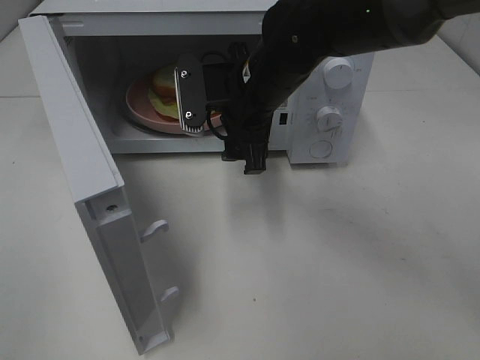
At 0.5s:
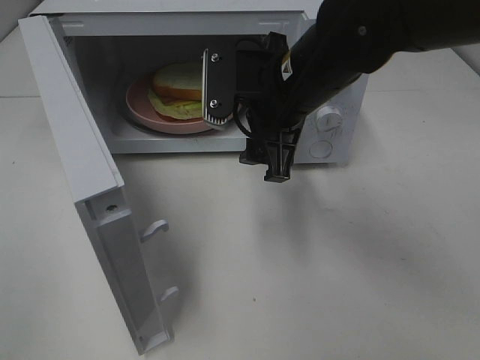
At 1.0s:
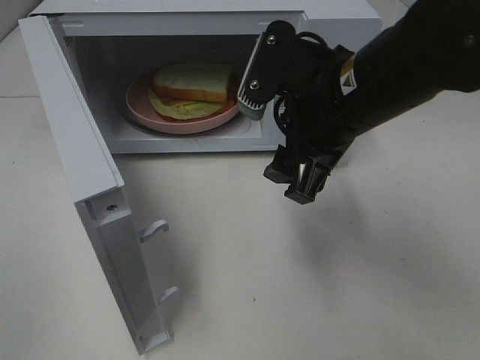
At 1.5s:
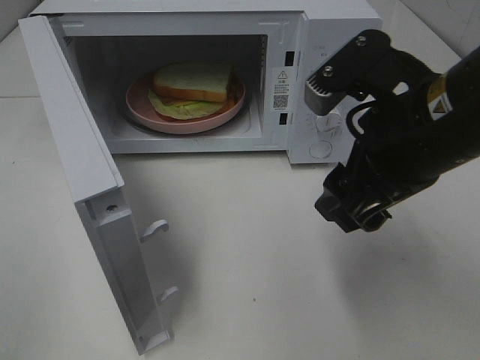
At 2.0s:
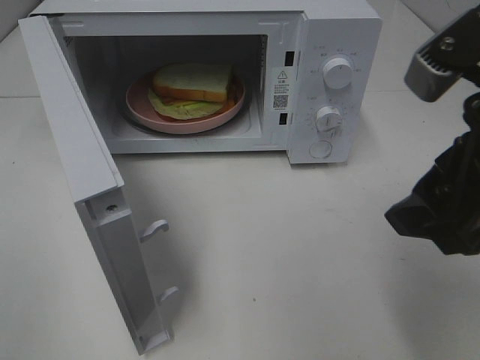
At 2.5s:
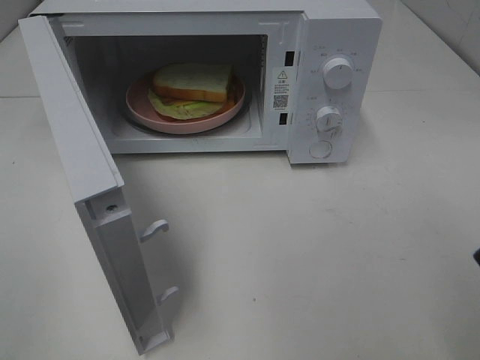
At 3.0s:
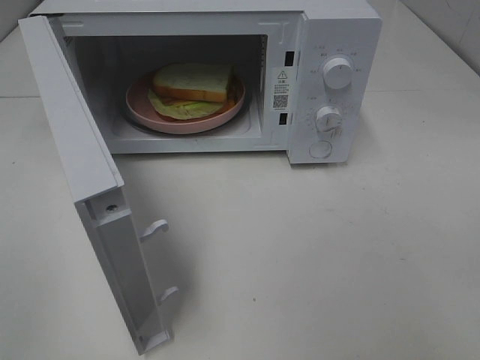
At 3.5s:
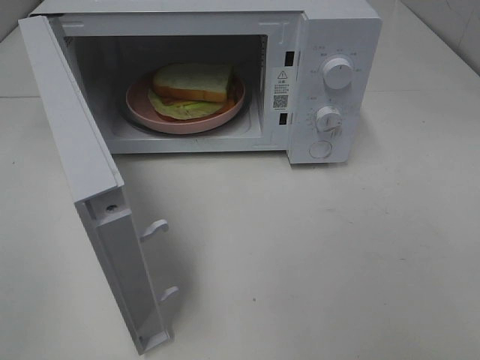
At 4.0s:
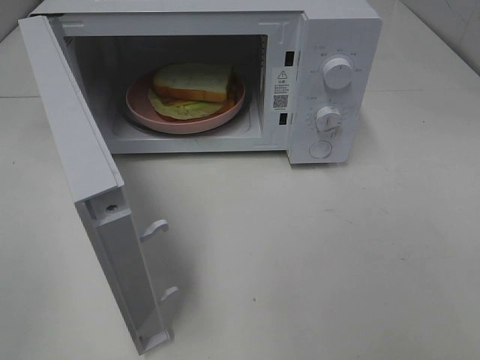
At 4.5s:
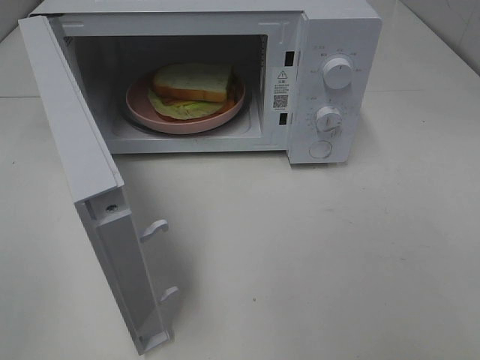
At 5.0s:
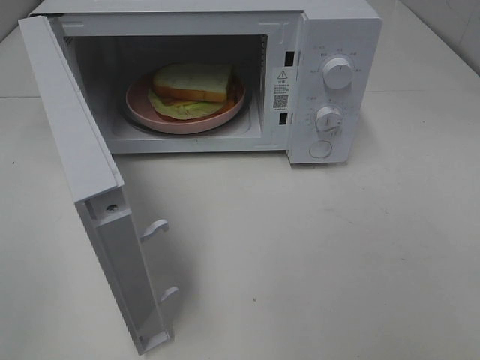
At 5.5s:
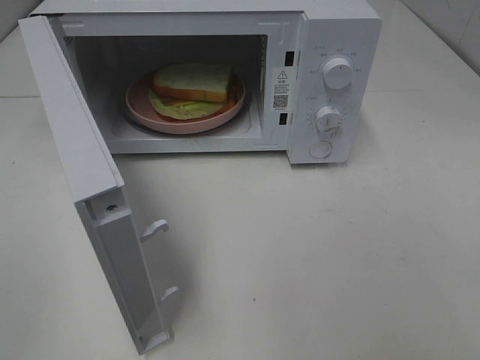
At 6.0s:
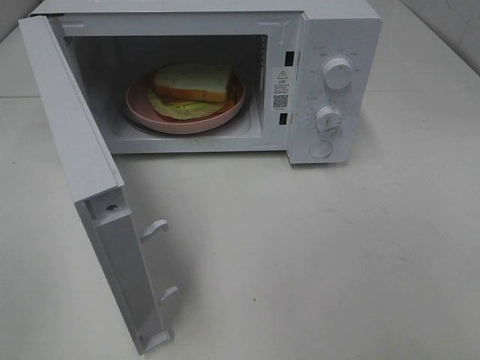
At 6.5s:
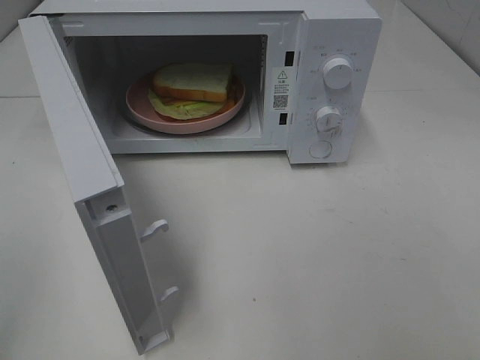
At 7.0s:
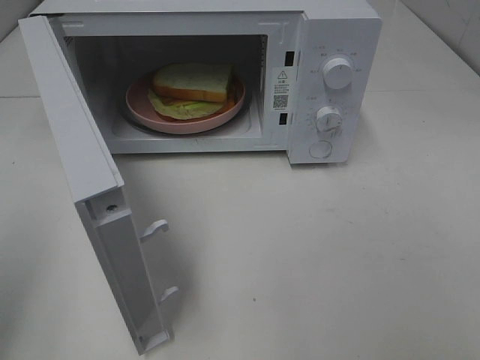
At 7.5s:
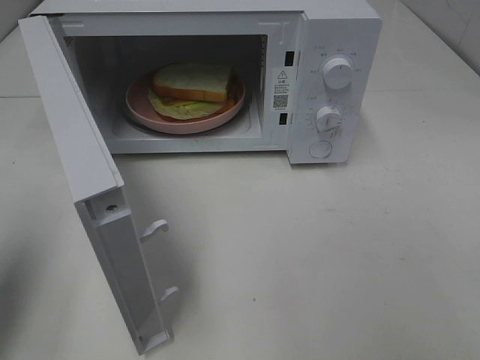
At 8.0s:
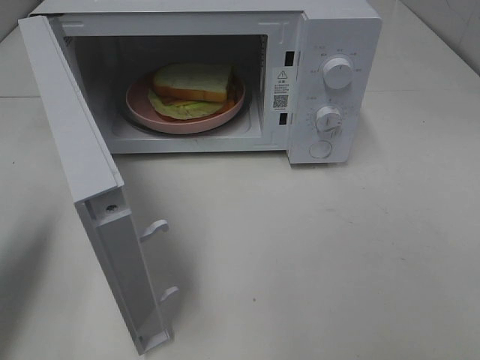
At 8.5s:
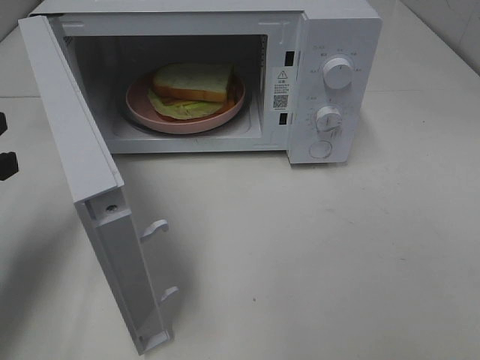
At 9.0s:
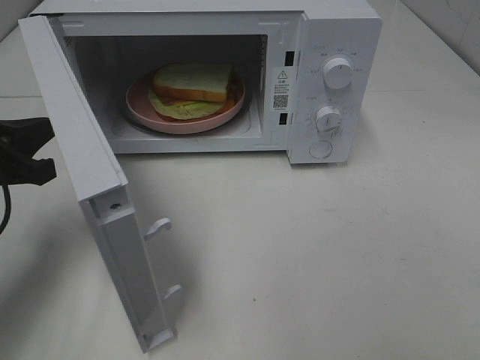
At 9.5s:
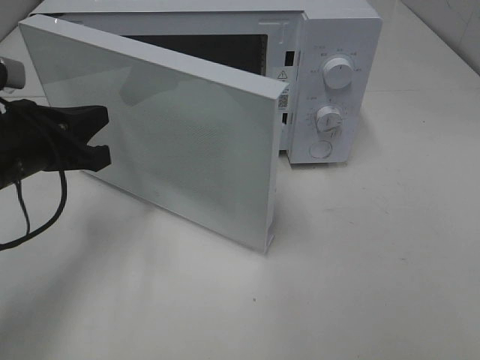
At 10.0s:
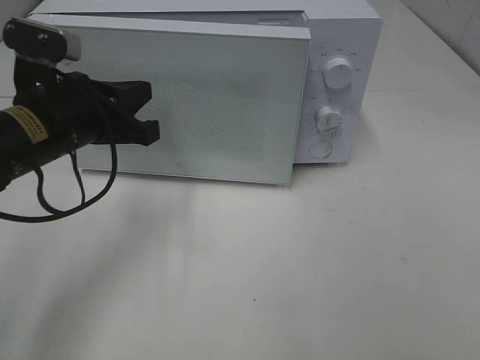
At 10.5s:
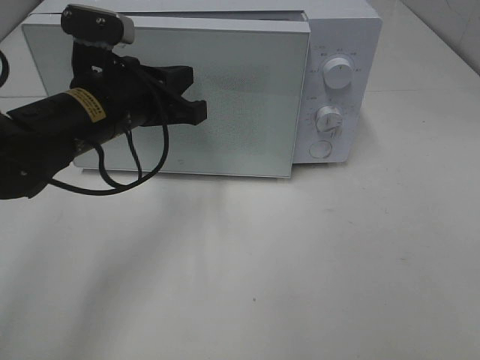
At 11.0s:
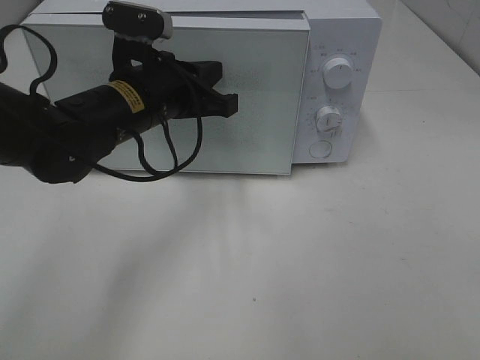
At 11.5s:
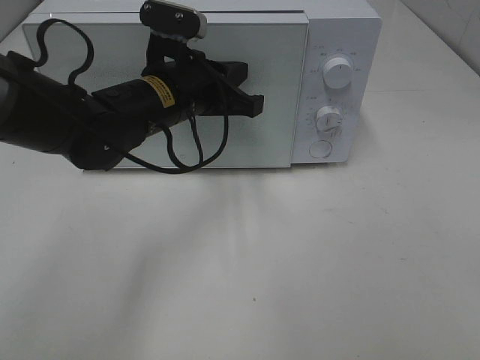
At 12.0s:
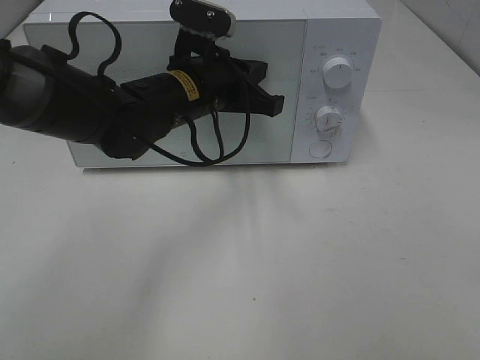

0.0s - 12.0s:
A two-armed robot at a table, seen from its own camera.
Task of the whole recording: Heat Sandwich.
0.0s - 2.0s: The right gripper heads backward, to the right and upward, covering about 25 cm.
2.0s - 4.0s: The right gripper goes about 20 cm backward and to the right.
4.0s - 6.0s: Both grippers stay about where they are.
6.0s - 8.0s: The left gripper moves forward, roughly 20 cm, and closes.
8.0s - 10.0s: The left gripper moves to the right and forward, roughly 15 cm.
10.0s - 12.0s: The left gripper is displaced to the right and forward by approximately 15 cm.

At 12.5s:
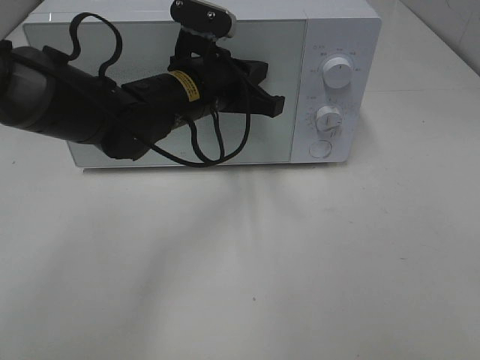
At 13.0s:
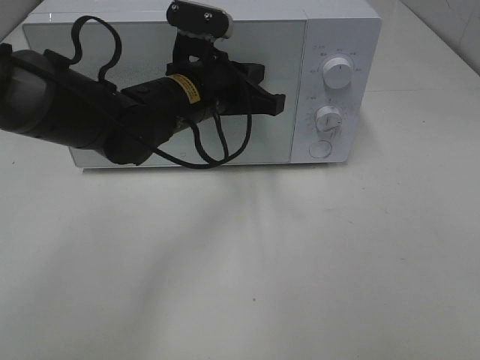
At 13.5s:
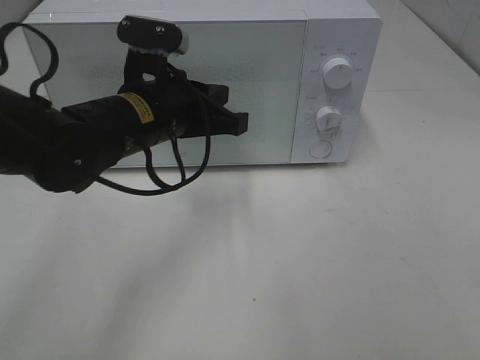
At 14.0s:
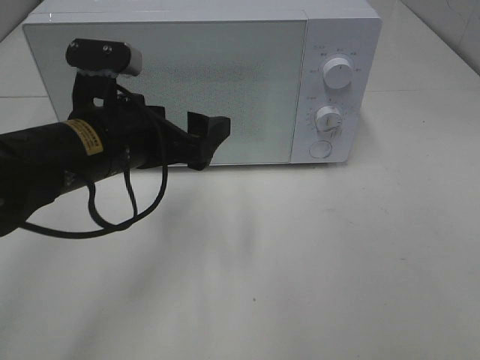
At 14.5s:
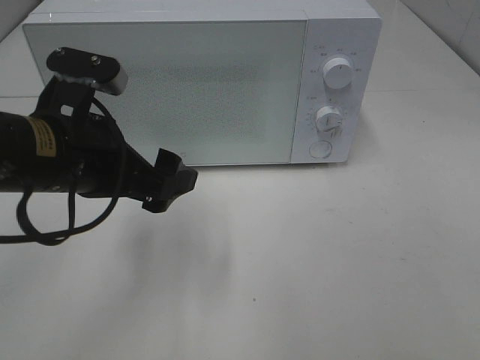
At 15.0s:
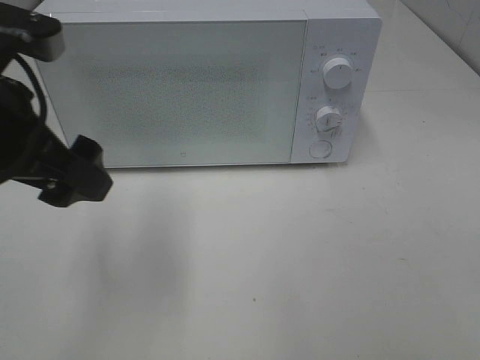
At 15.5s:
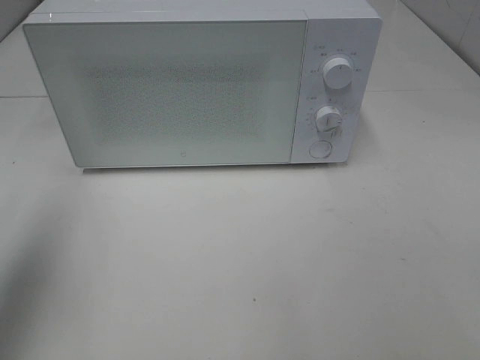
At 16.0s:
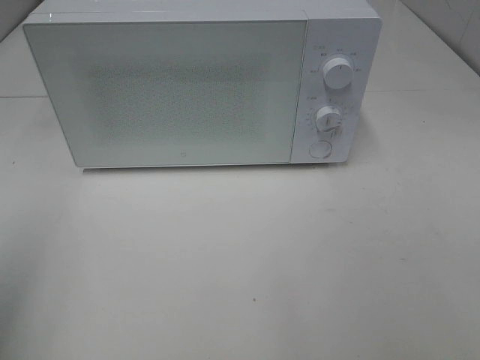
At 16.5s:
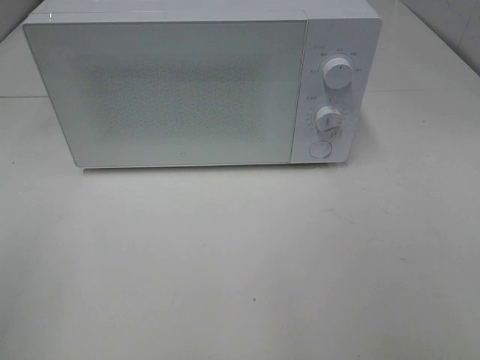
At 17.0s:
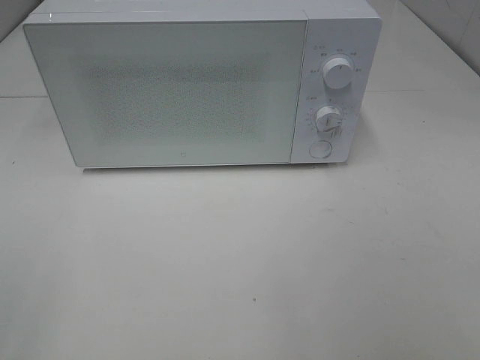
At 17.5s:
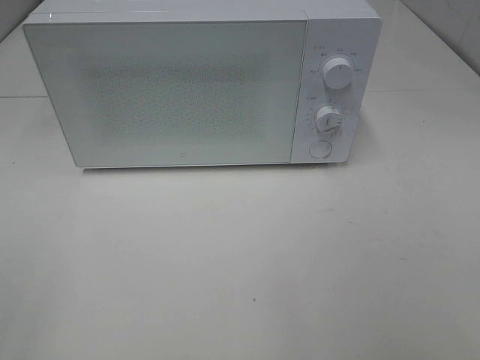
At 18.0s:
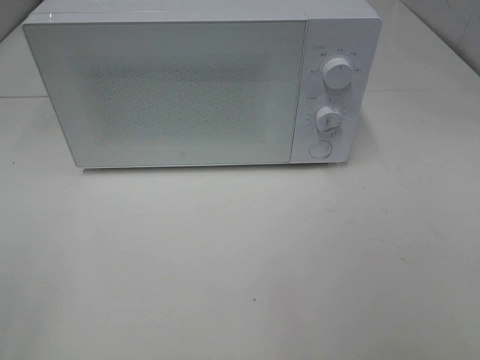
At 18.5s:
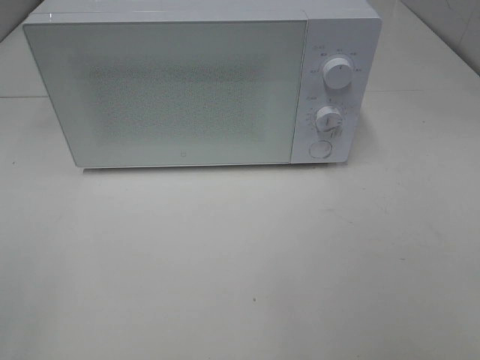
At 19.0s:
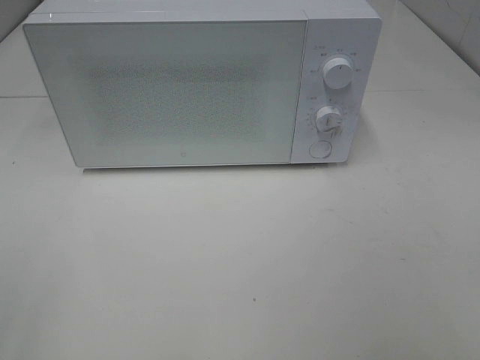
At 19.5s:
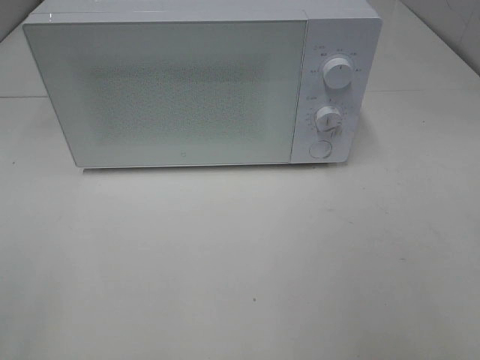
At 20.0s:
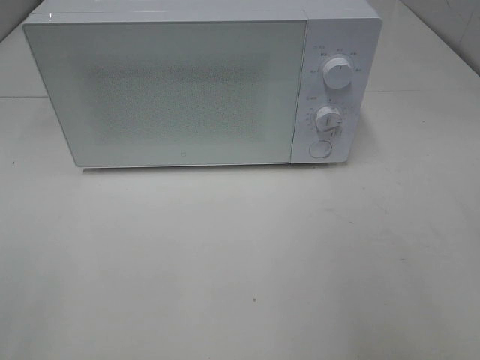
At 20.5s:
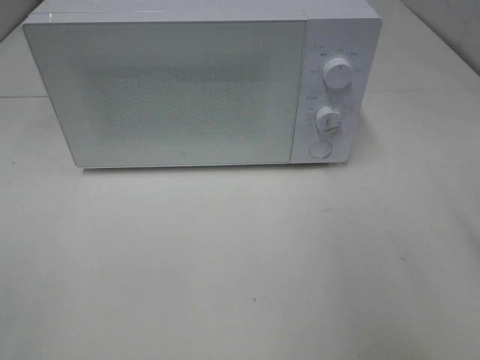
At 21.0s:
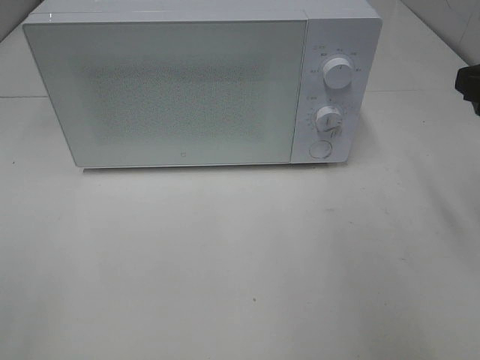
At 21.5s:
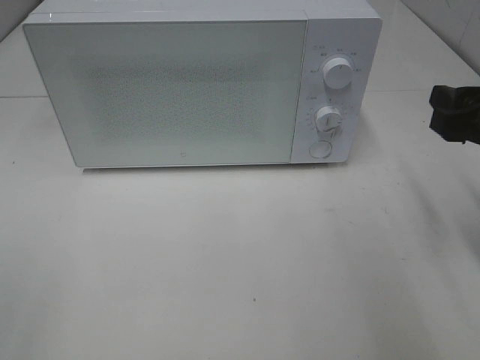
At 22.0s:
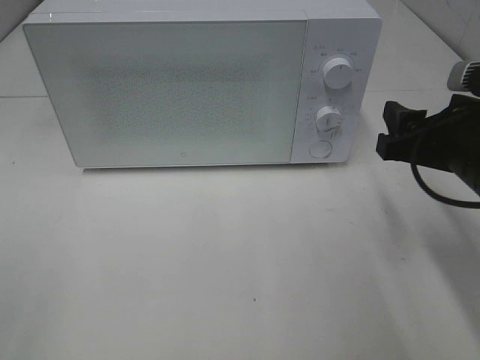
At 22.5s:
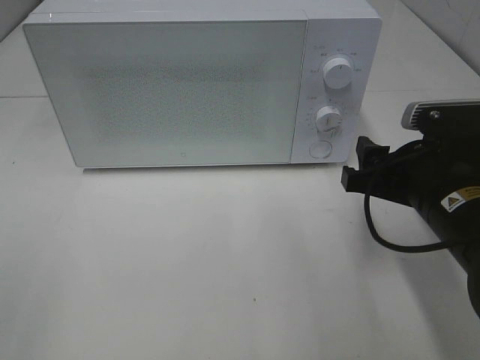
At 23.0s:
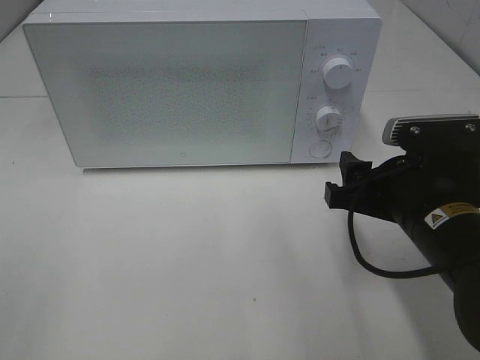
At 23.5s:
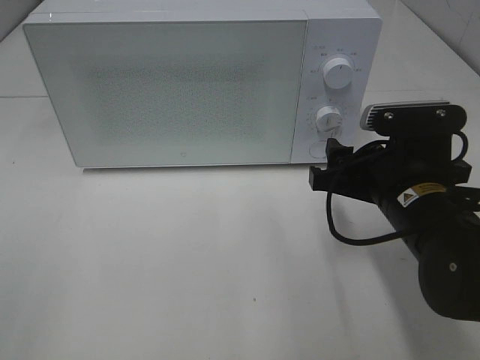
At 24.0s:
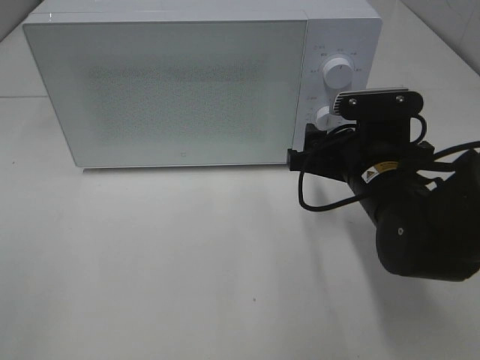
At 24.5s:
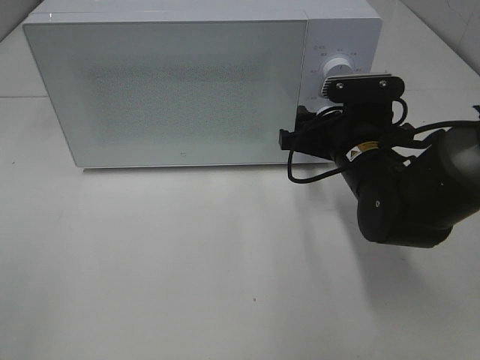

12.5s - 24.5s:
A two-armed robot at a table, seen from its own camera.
Task of the whole recording: Heat Sandwich.
12.5s - 14.5s: The left gripper is displaced backward and to the left by about 15 cm, and opens its fingers.
14.5s - 16.5s: The left gripper moves backward, to the left and upward, approximately 25 cm.
20.5s - 22.5s: The right gripper moves downward and to the left, some 15 cm.
22.5s - 24.5s: The right gripper moves forward, roughly 10 cm.

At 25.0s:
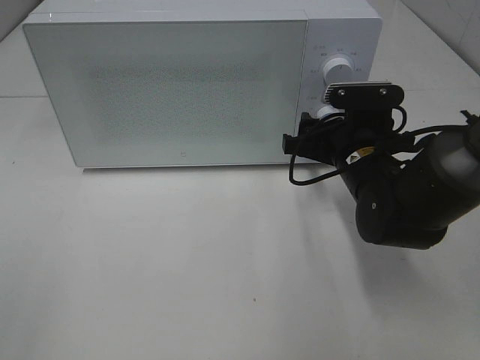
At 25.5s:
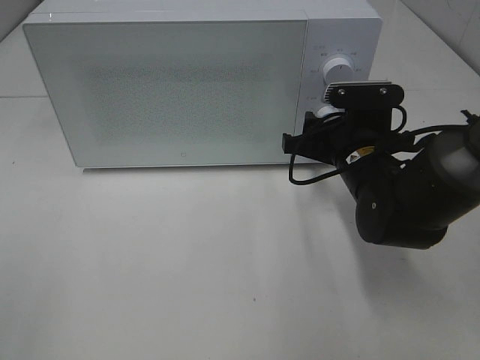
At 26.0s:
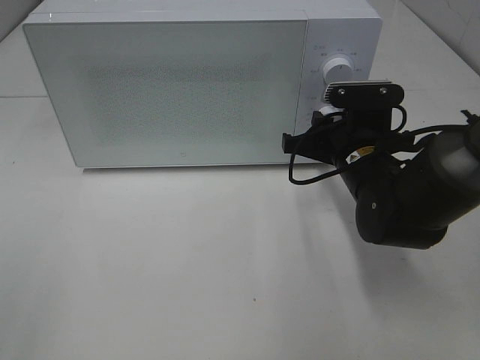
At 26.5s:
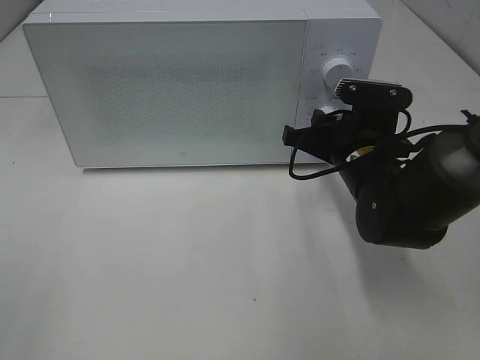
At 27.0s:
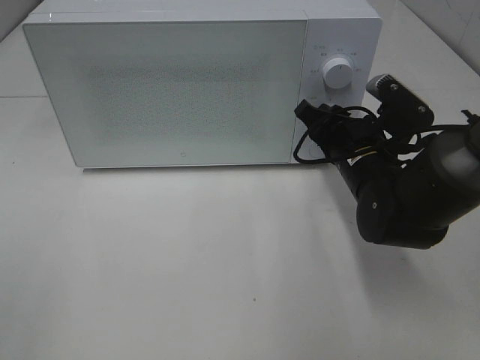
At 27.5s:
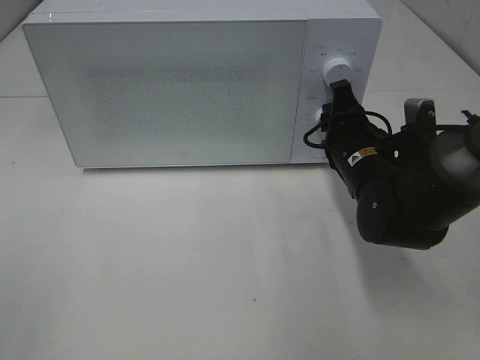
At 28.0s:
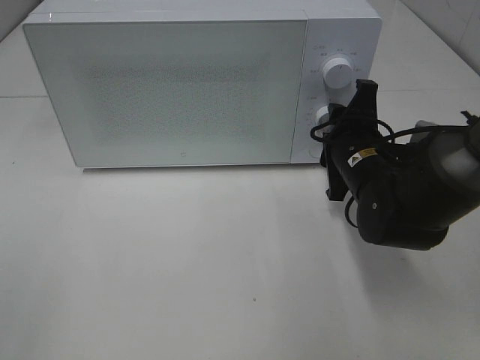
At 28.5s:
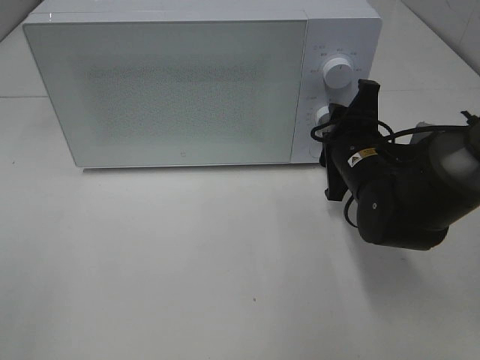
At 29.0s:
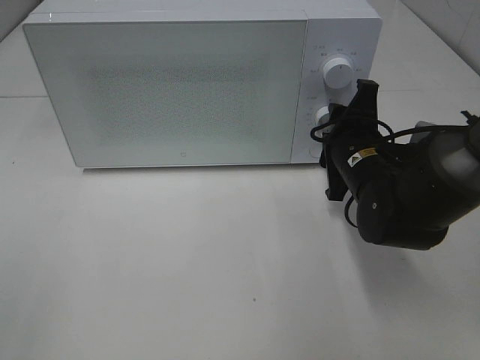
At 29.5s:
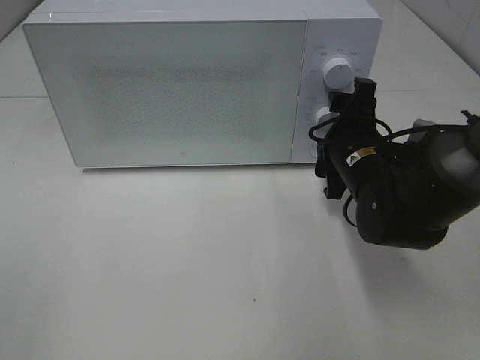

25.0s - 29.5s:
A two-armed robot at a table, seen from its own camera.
Task of the whole recording: Heat Sandwich.
25.0s - 27.0s: The right gripper closes its fingers.
27.0s - 29.5s: The right gripper opens its fingers.
